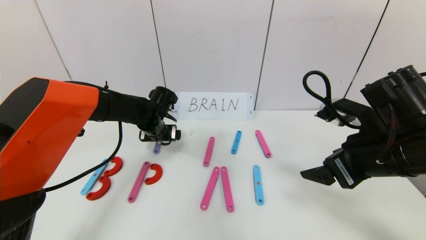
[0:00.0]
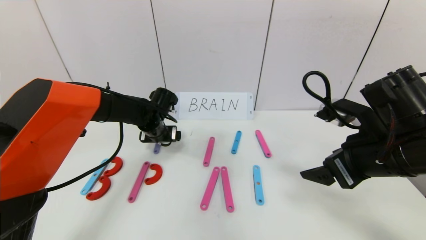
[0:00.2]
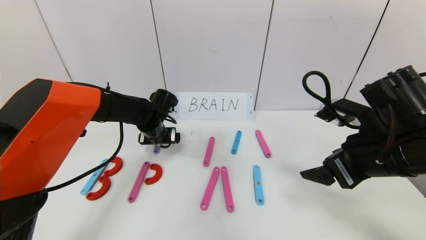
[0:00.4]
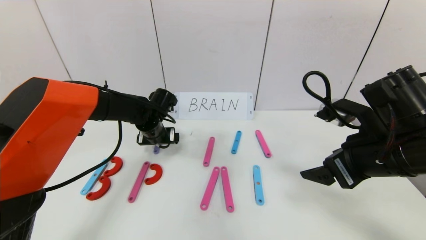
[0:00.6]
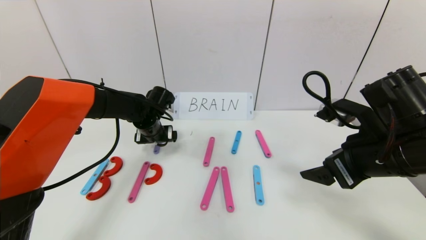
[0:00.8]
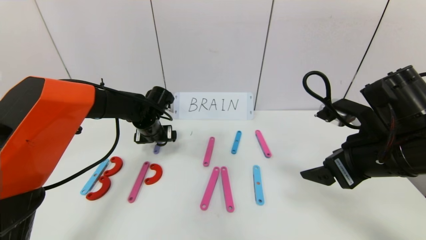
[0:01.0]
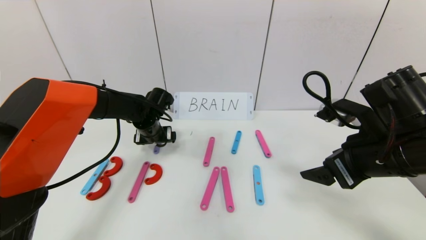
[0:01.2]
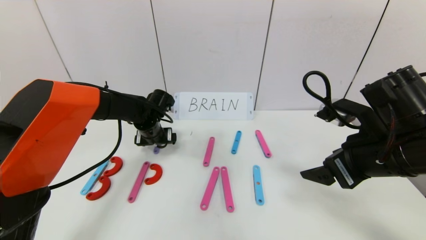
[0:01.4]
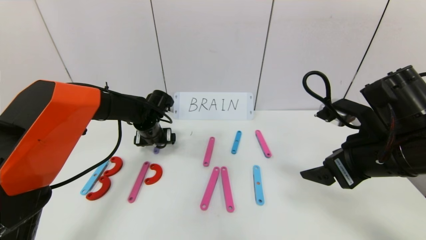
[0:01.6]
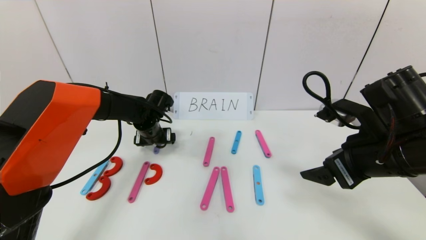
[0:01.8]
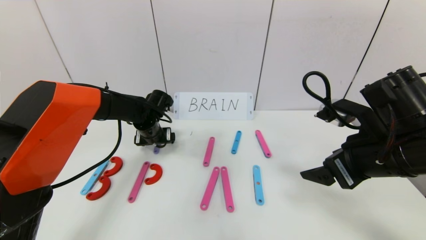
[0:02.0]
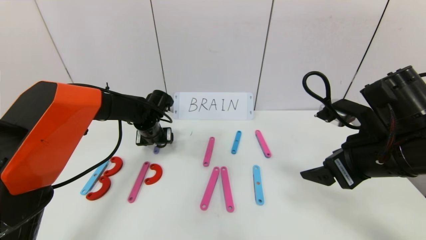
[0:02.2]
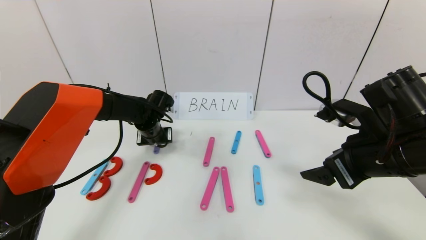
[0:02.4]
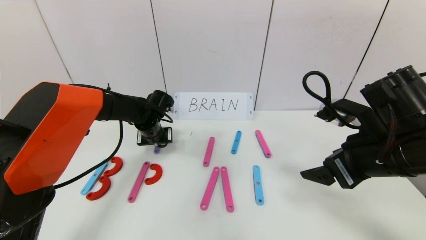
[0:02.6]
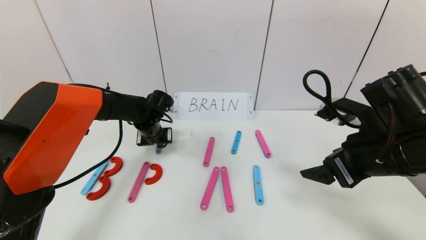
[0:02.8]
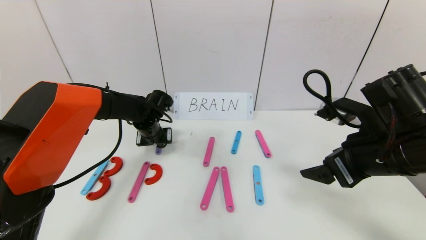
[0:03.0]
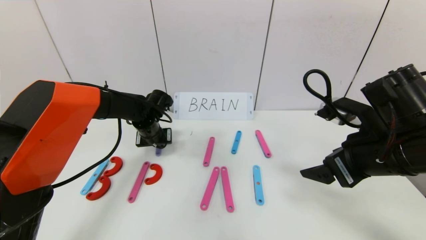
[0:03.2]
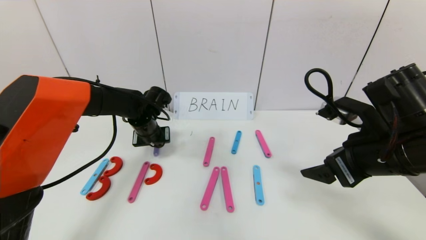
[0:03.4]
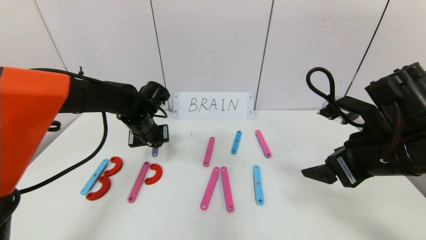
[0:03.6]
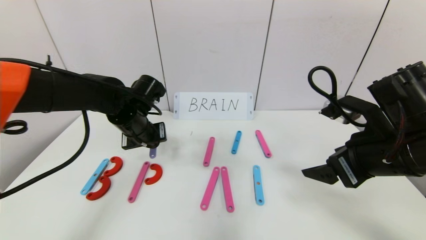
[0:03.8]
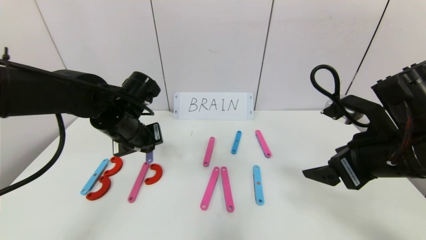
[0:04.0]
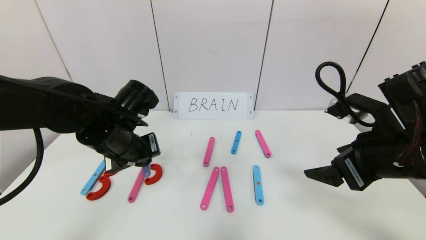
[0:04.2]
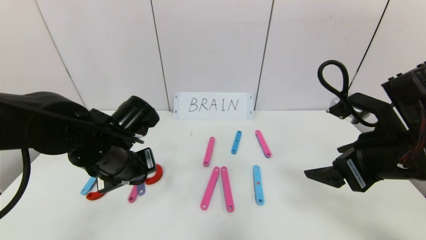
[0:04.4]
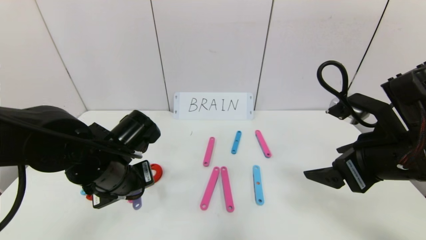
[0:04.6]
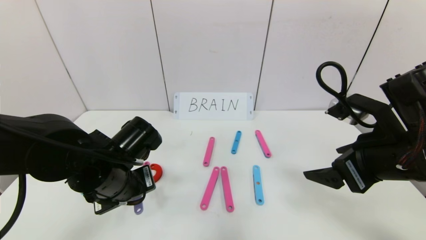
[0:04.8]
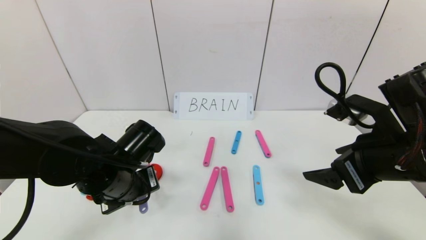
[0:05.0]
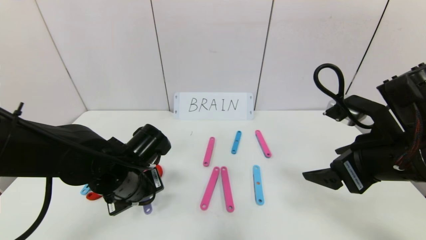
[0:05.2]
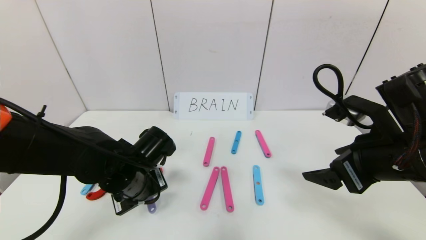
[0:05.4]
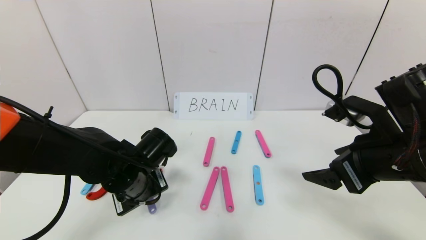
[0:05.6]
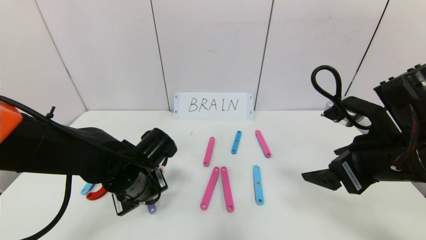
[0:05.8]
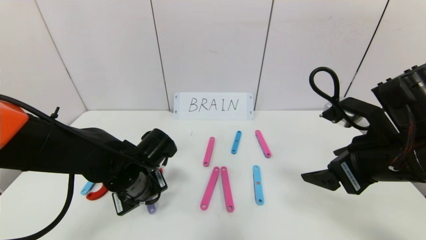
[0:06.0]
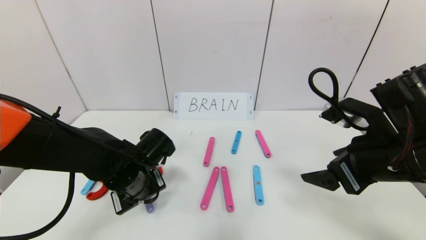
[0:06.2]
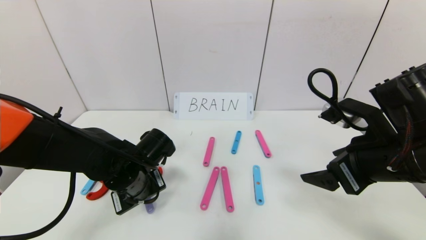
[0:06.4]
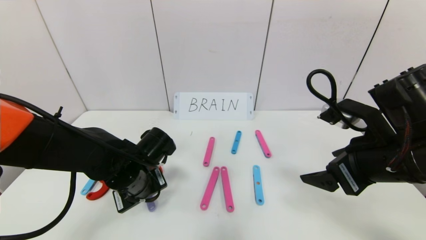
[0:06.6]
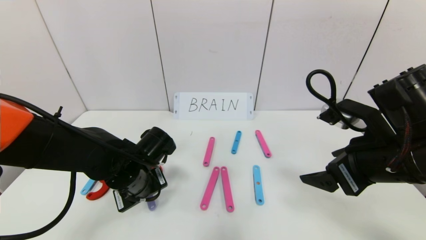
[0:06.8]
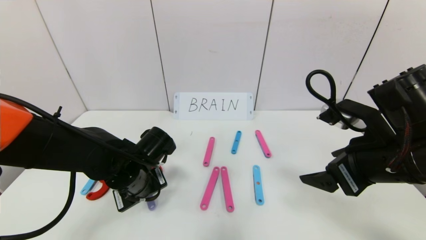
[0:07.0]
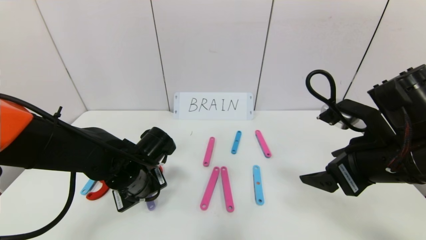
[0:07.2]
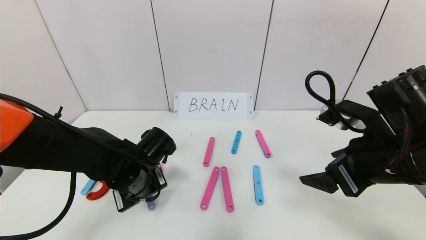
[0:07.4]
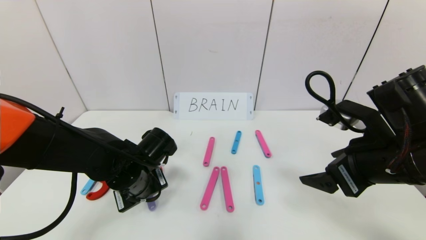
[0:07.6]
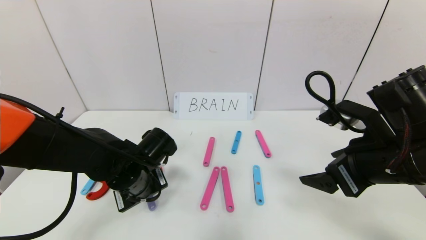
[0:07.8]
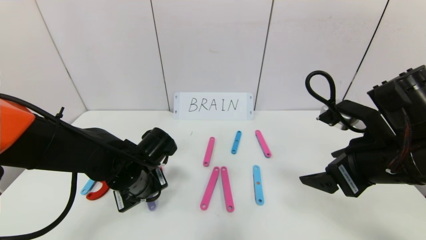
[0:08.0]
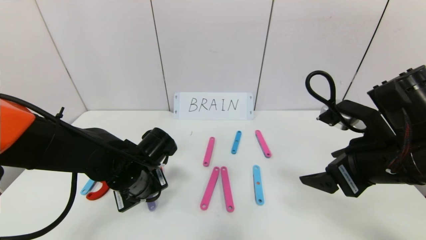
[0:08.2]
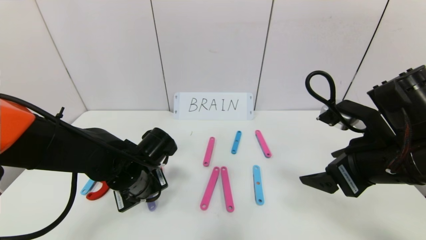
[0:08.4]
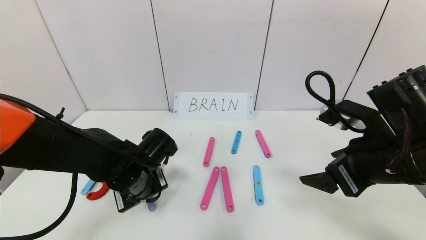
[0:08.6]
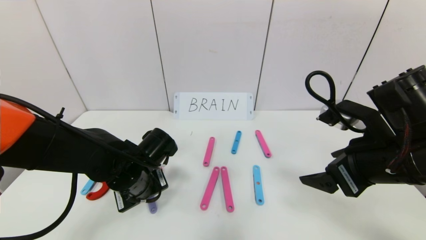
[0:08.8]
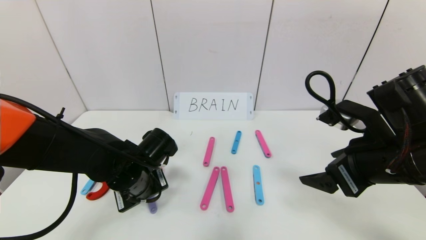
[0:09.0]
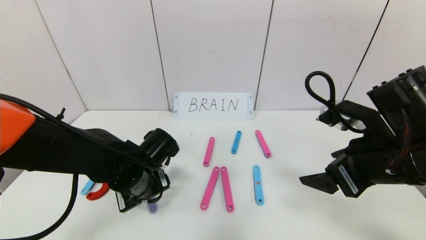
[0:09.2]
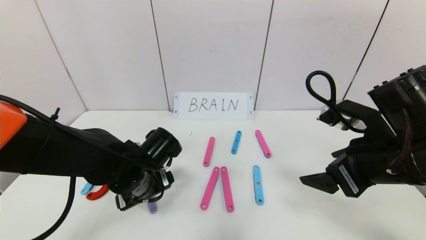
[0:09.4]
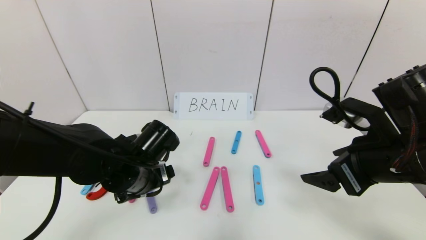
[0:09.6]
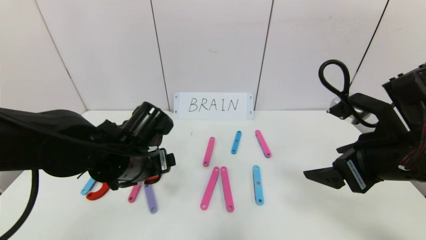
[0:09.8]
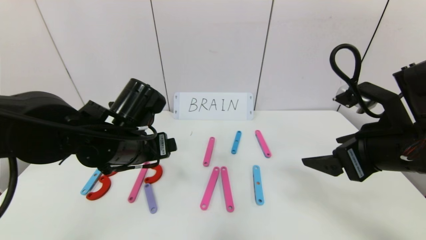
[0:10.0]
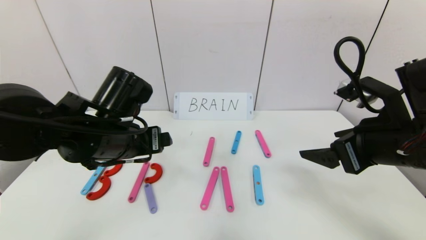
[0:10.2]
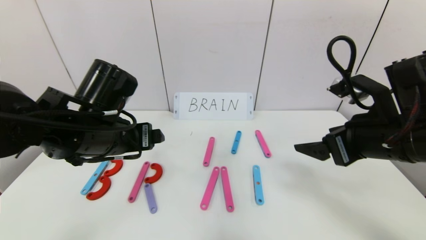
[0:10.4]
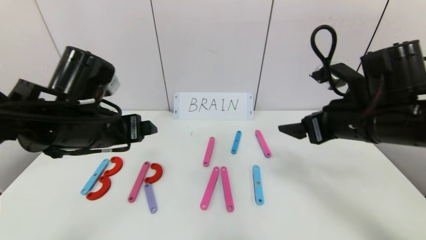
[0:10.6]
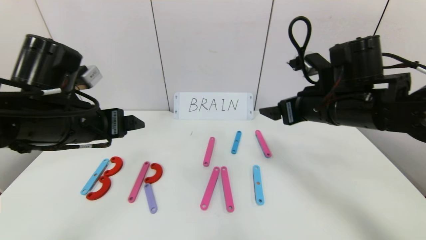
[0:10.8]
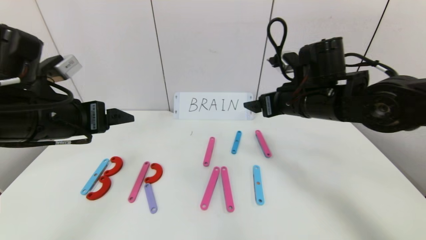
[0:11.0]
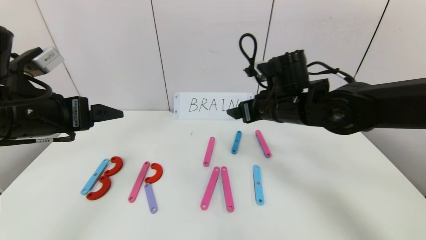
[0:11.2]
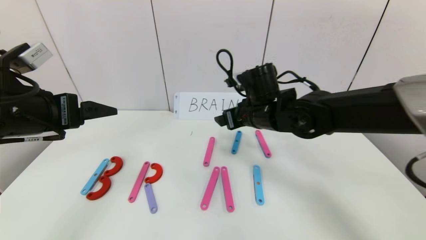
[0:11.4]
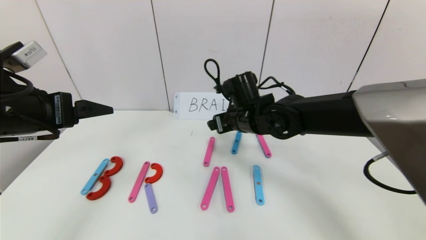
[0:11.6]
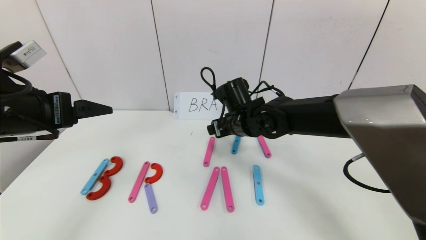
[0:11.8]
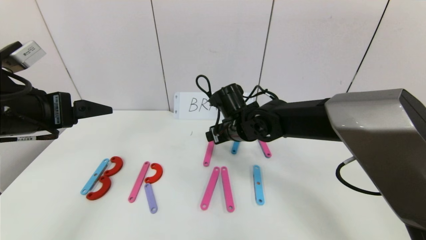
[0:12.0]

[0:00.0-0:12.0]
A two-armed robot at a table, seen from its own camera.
Task of the whole recording: rearrange the word baai as brain.
Step, 0:00.0 to 0:08.8: Place the character R between first character B and third character A.
0:00.0 to 0:01.6: The grippers move only a little.
0:01.6 to 0:03.0: The left gripper closes.
0:03.0 to 0:04.4: The left gripper moves backward, approximately 20 cm.
0:04.4 to 0:06.0: The left gripper goes approximately 5 cm downward.
0:06.0 to 0:07.6: The two grippers keep their place.
0:07.6 to 0:09.0: The left gripper opens.
0:09.0 to 0:10.4: The left gripper goes some 10 cm upward, and opens its fingers.
0:10.4 to 0:12.0: The right gripper is displaced to the left, forward and downward by about 25 cm. The left gripper heads to the left and upward, covering approximately 10 cm.

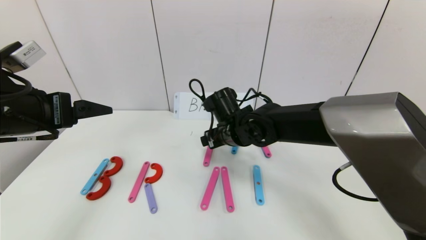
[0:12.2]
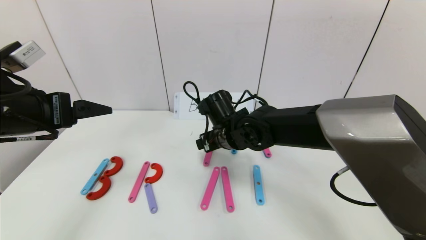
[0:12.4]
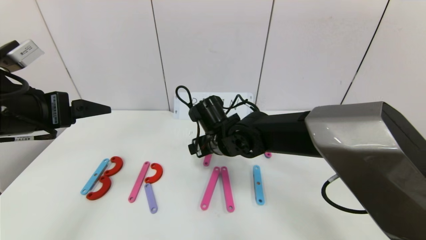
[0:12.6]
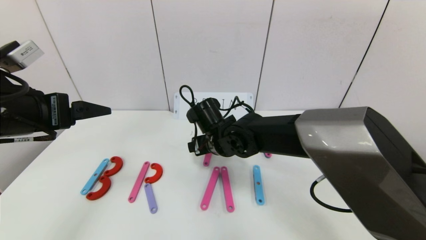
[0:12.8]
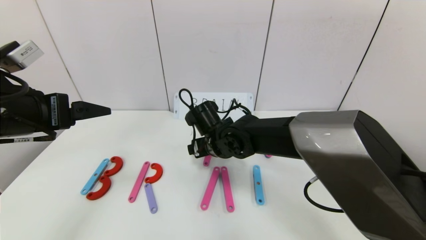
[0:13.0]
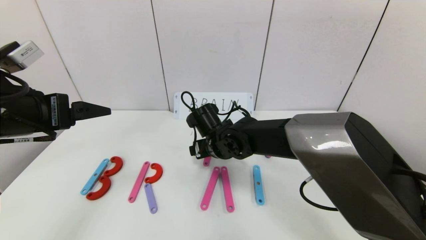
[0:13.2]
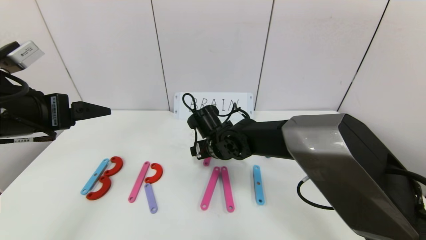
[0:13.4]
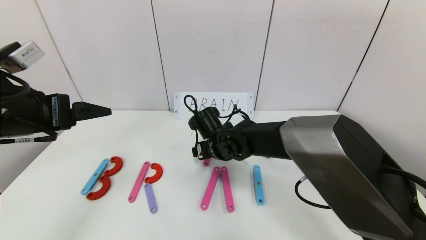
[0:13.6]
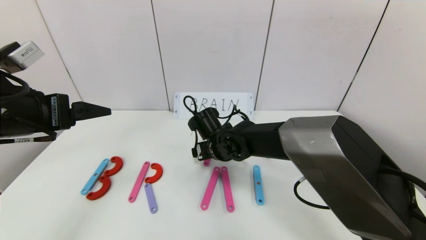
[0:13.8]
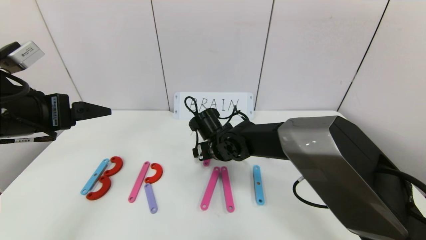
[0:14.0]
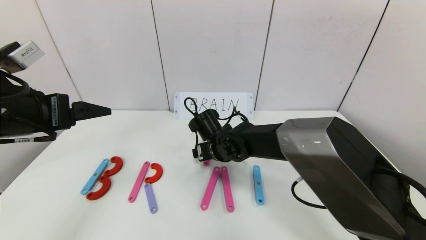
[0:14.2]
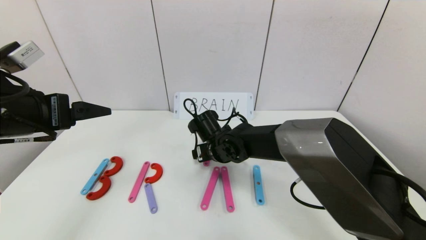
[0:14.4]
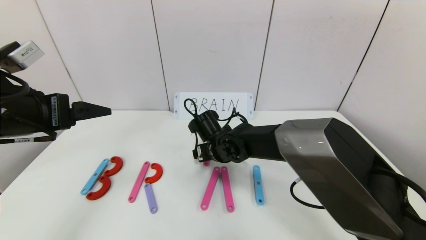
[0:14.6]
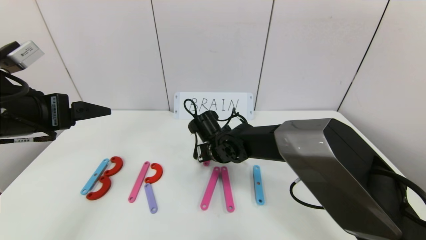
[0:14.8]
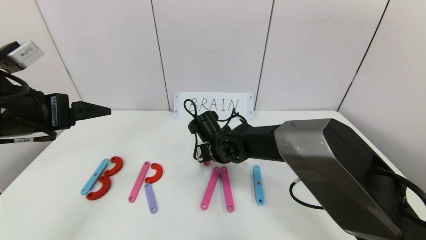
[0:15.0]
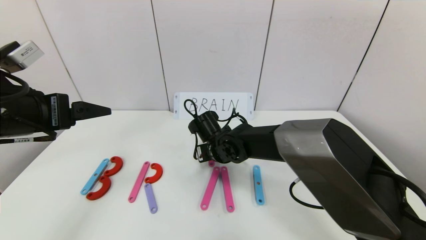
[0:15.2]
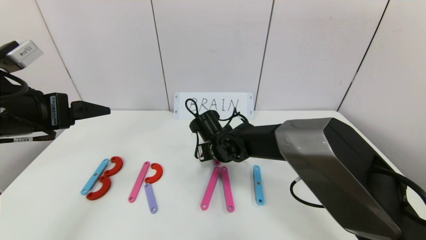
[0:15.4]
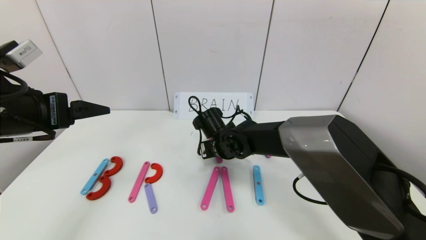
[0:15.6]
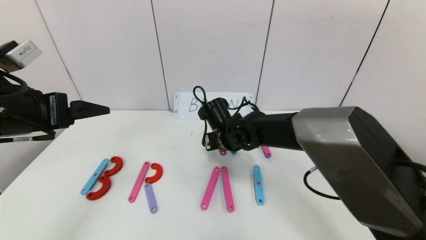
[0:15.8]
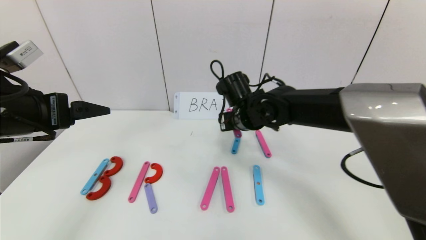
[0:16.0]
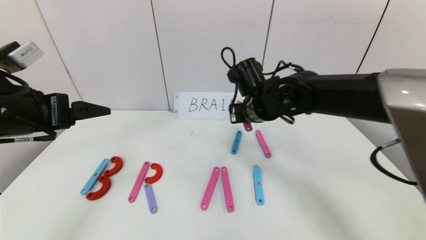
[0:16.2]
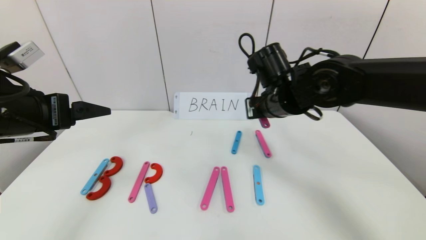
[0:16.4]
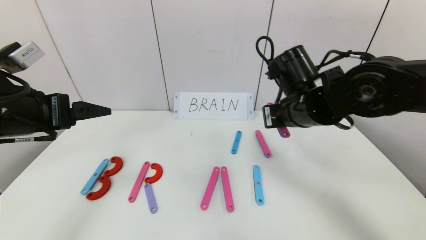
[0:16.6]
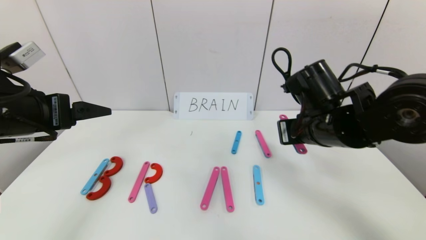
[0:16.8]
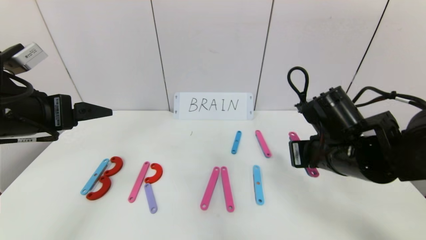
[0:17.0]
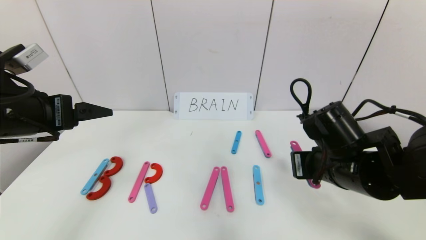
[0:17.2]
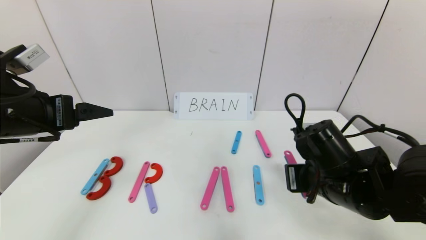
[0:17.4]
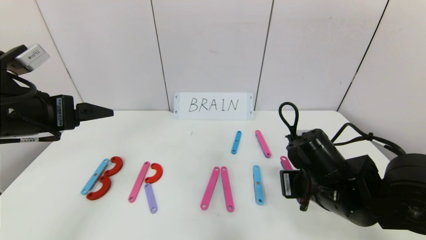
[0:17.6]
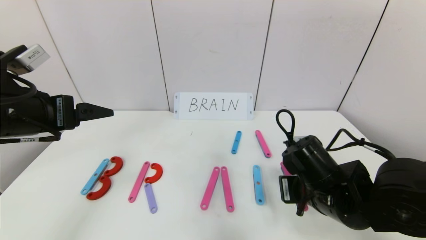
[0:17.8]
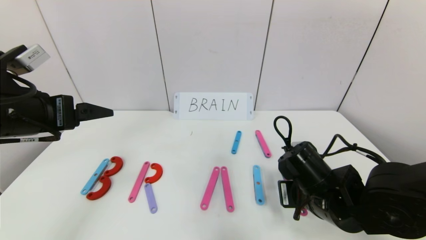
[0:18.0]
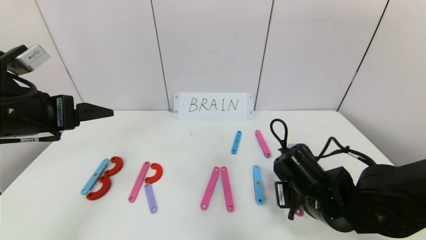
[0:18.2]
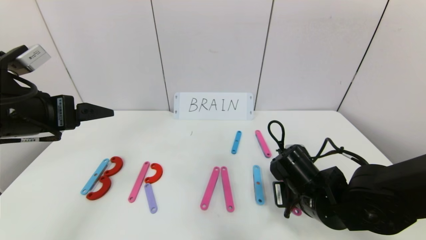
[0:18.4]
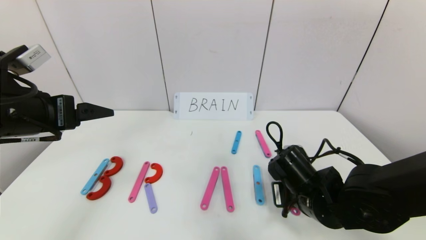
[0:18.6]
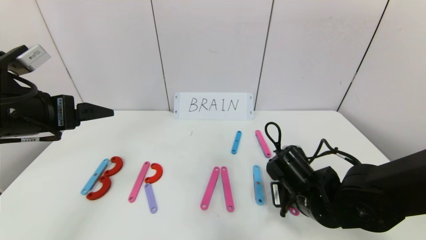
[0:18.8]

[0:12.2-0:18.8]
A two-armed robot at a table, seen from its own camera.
Task of the whole recording: rearrange the word baai as brain.
0:12.2 to 0:13.8: The right gripper shifts roughly 5 cm downward.
0:13.8 to 0:15.4: The right gripper closes its fingers.
0:15.4 to 0:17.2: The right gripper heads to the right, backward and upward, covering about 25 cm.
0:17.2 to 0:18.8: The right gripper heads downward, covering about 10 cm.
